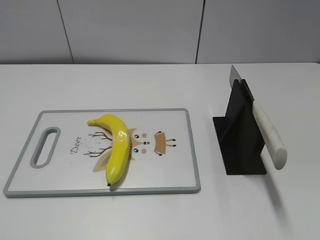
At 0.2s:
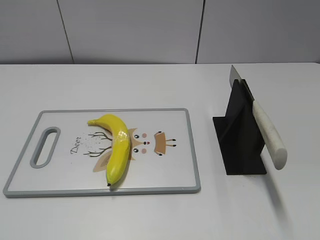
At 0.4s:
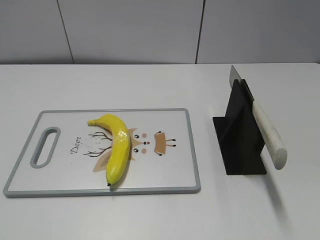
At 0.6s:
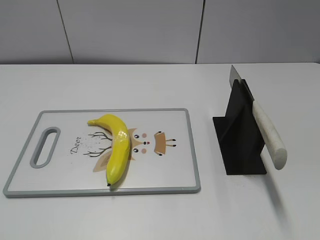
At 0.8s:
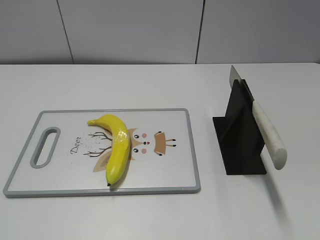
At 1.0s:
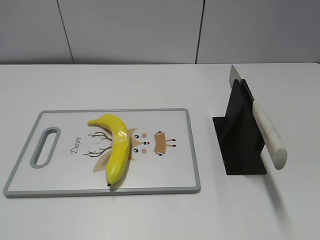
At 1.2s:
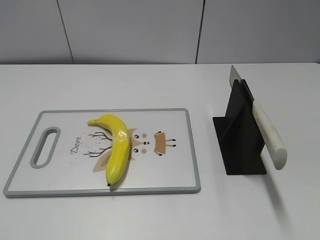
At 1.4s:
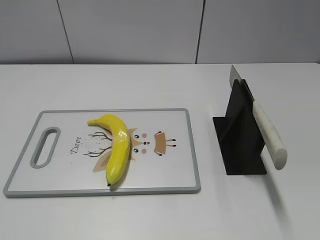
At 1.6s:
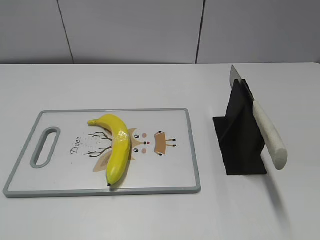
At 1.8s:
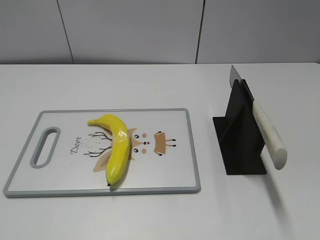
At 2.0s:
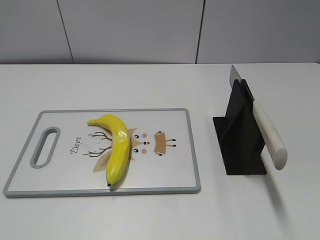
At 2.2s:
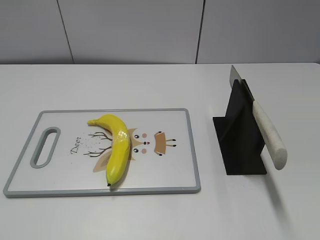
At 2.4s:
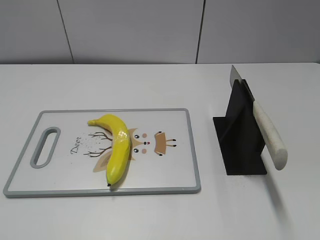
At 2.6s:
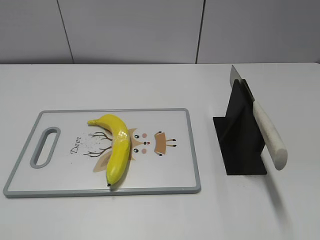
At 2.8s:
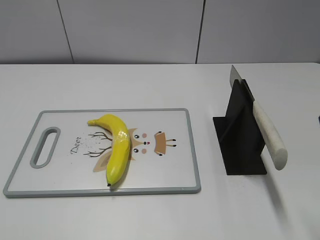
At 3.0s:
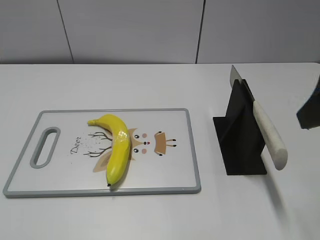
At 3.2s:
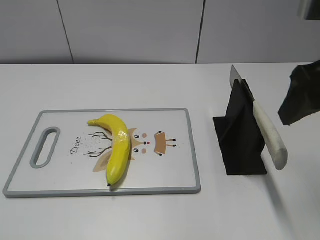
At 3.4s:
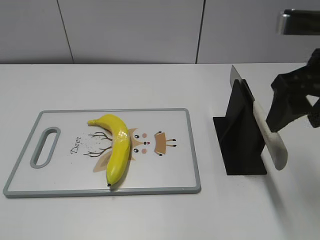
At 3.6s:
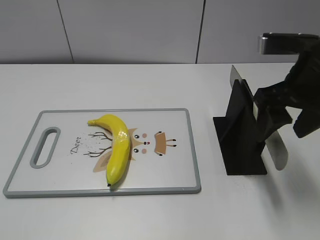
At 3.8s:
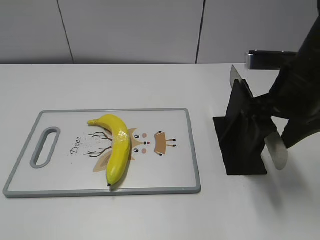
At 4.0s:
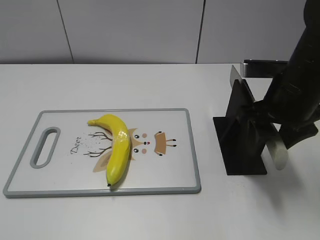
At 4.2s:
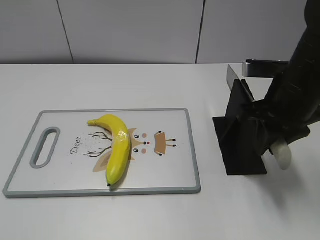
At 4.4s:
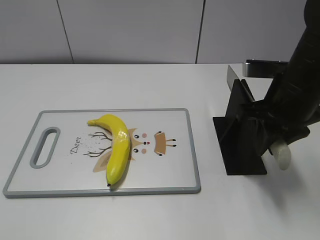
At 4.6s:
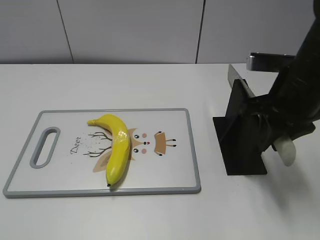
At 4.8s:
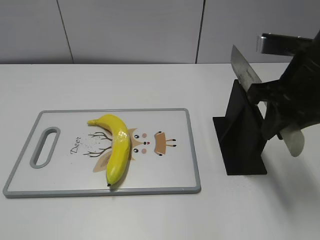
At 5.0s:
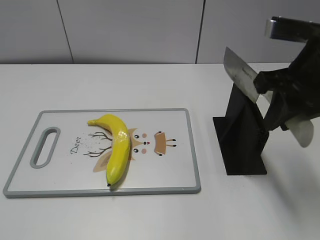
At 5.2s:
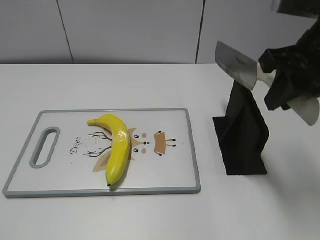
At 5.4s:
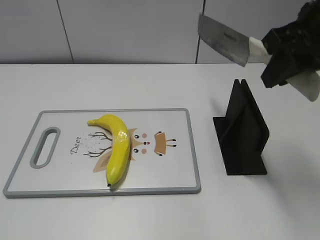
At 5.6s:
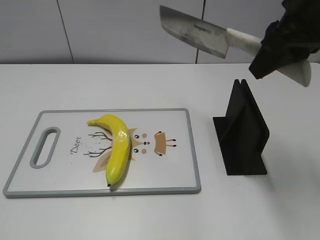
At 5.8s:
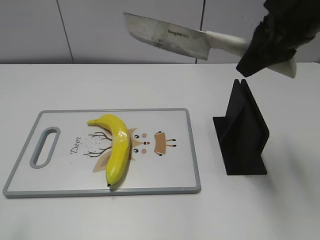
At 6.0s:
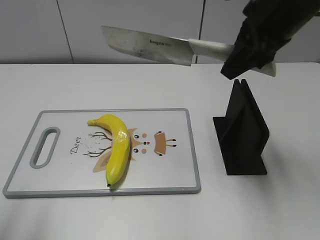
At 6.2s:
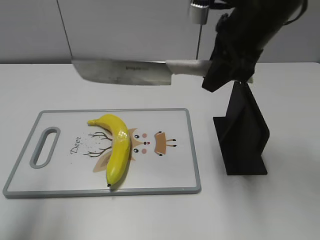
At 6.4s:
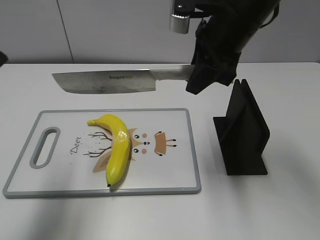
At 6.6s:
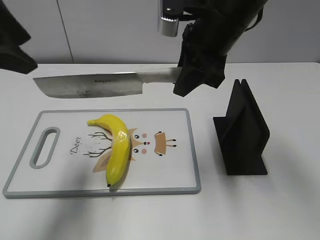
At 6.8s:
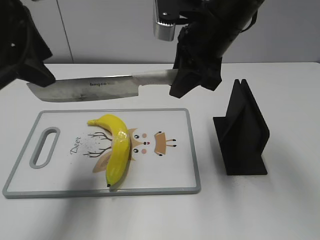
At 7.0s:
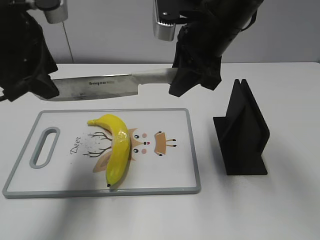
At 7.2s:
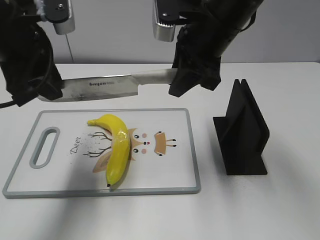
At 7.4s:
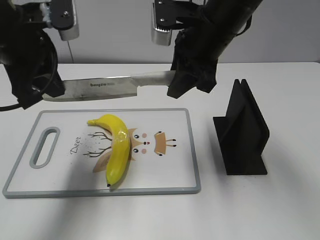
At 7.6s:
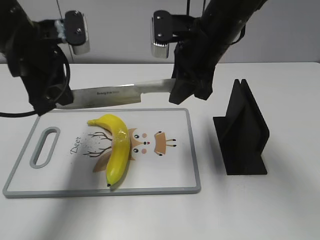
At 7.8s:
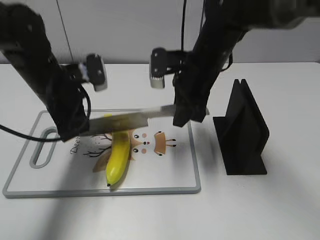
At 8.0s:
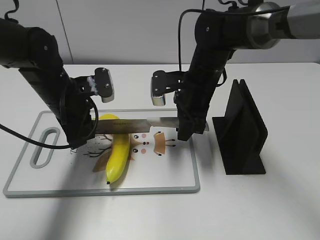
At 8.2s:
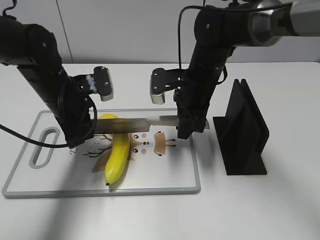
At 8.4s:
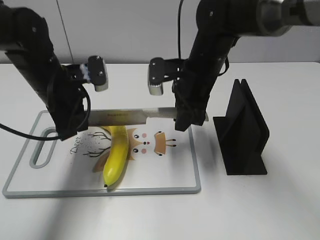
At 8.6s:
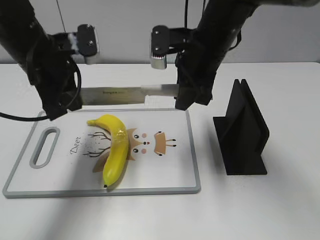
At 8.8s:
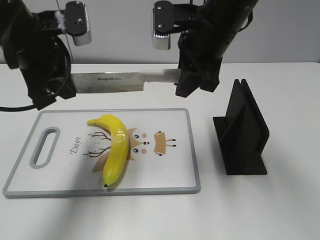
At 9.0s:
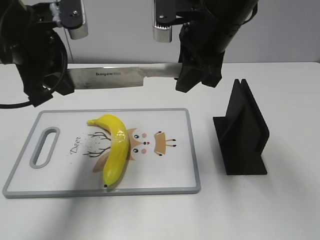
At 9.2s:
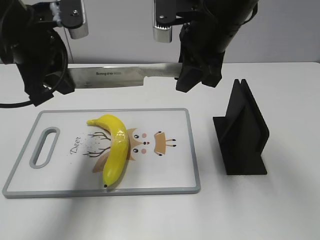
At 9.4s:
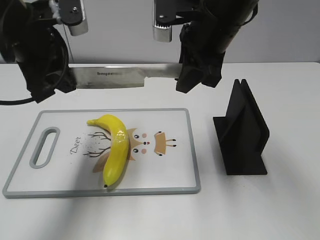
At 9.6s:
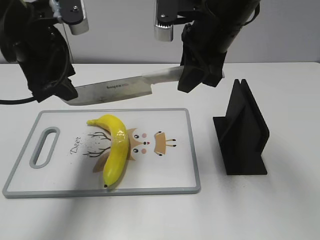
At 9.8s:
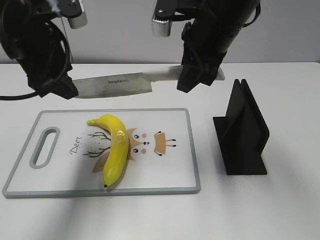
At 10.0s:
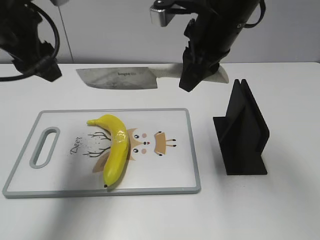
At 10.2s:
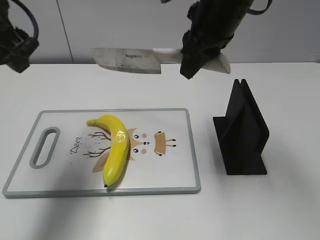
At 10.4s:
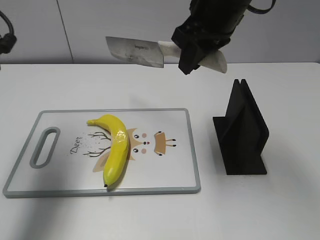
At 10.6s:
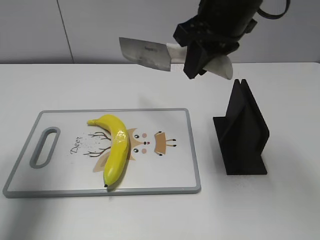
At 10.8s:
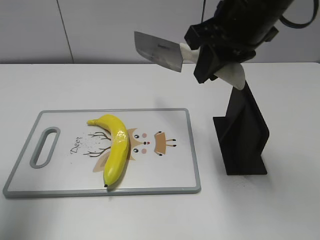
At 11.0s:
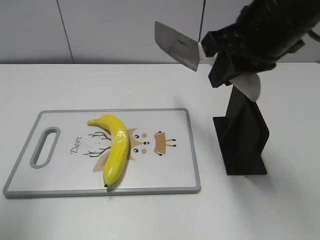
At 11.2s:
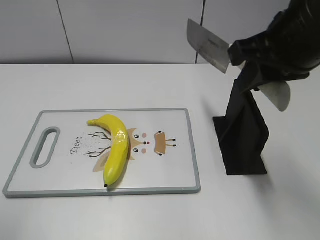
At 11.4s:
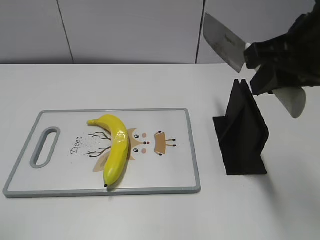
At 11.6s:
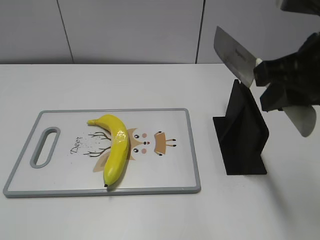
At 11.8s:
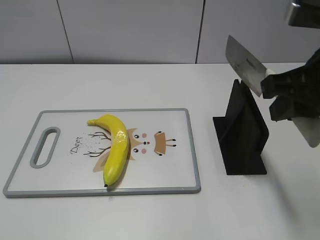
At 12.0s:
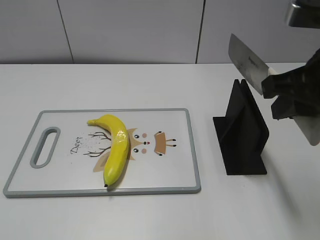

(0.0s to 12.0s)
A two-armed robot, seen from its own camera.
Task of the whole recording: cut plastic banana.
Step, 0.0s - 5.0s: Grab the knife handle with your right hand.
Step, 5.2s - 9.0s: Lift the knife with your right hand.
Step, 9.2s - 9.8s: Cut the banana with your left hand.
Step, 10.2s - 11.4s: Lift the knife with your right hand.
1.6s - 3.0s: The right gripper travels forward by about 15 cm.
3.0s - 4.4s: The right gripper moves downward and forward, about 15 cm, and closes up.
4.4s - 6.0s: The right gripper travels upward by approximately 10 cm. The left gripper moves forward and upward, some 15 cm.
6.0s - 7.6s: The left gripper shifts some 25 cm forward, to the right and downward, and closes, while the right gripper heads to the left and downward, covering some 10 cm.
7.6s - 9.0s: The right gripper travels downward and back again, about 10 cm each way. The left gripper reaches about 10 cm downward, then returns.
9.0s - 10.4s: The left gripper travels to the left by some 5 cm, and opens up.
10.4s - 12.0s: The left gripper heads backward, covering about 30 cm. The right gripper heads backward and to the right, covering roughly 15 cm.

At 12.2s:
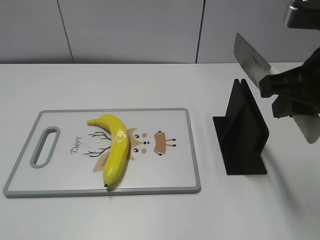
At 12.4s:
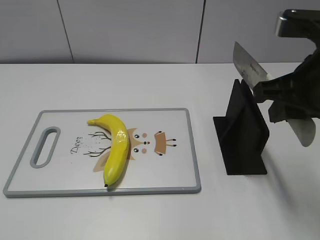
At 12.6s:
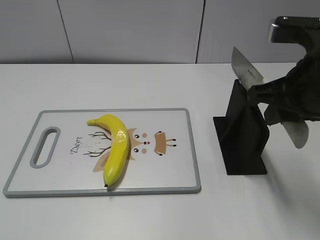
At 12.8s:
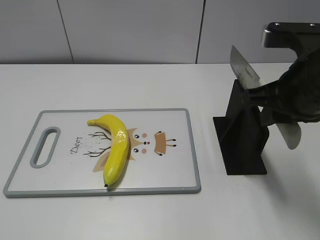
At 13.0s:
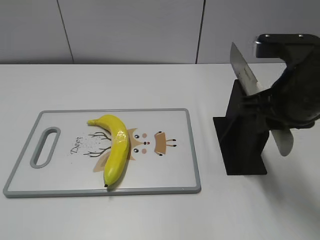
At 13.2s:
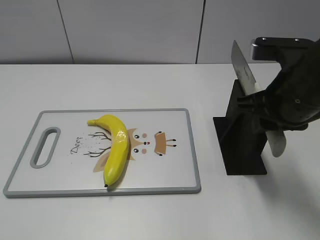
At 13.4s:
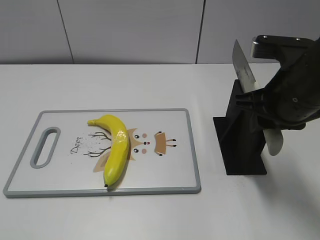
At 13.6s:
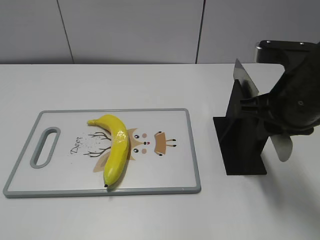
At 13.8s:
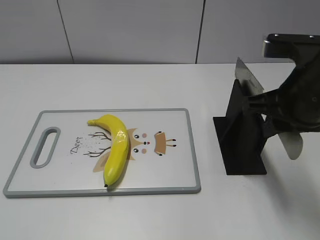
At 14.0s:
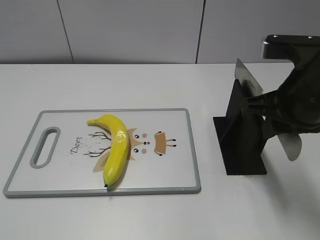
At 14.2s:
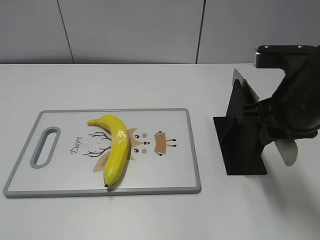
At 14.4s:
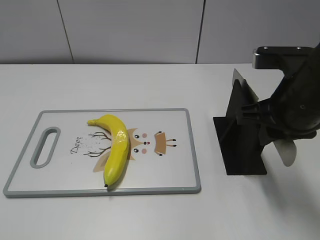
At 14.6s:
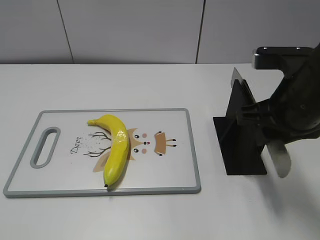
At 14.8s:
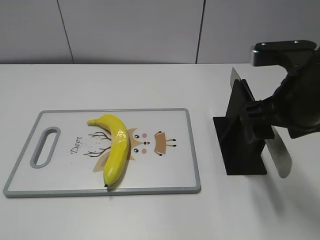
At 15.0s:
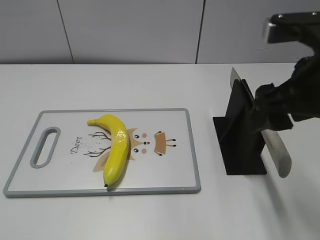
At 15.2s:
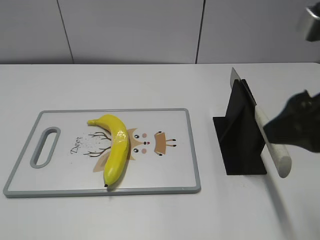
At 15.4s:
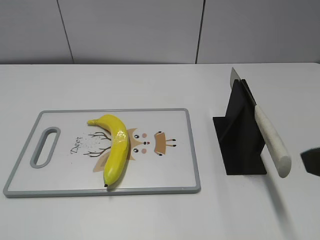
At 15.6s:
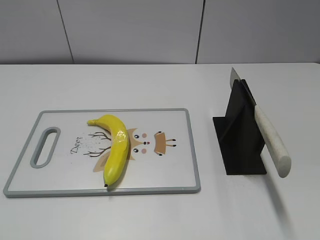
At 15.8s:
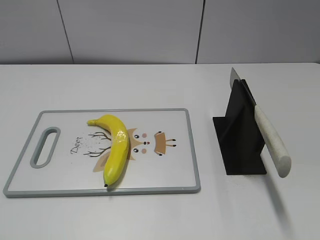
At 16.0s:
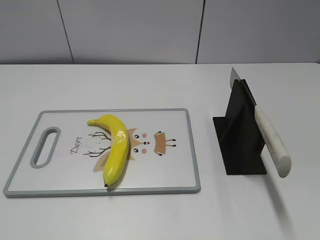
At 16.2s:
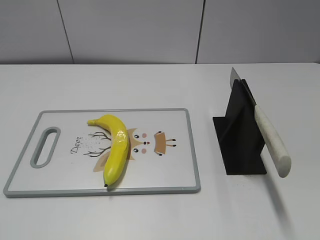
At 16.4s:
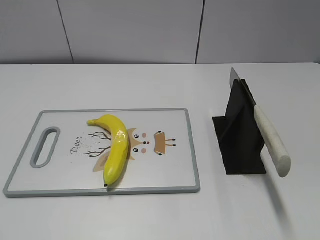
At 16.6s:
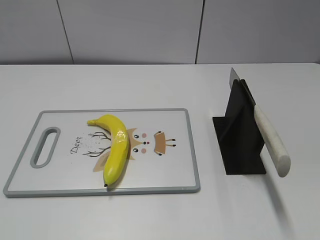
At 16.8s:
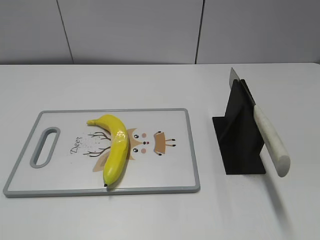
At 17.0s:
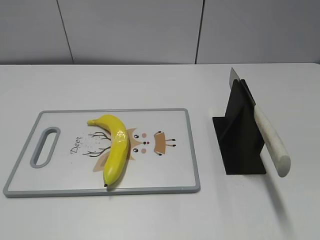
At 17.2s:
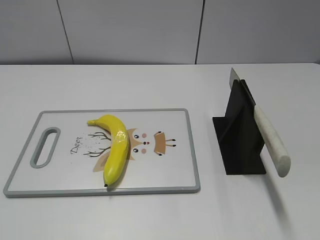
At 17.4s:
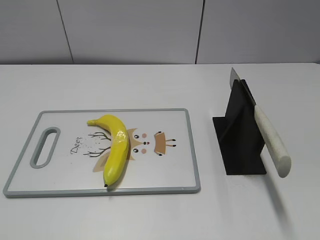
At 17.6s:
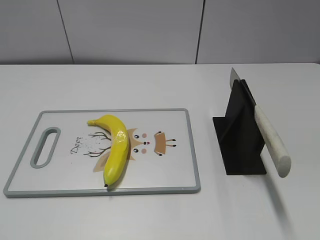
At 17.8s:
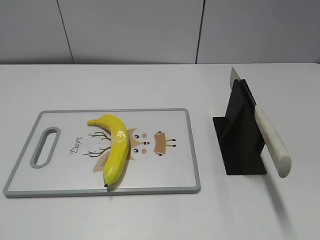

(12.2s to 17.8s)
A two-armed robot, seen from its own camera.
Task of the whole recording: cut plastic banana.
Step, 12.2s - 17.8s: Place the knife on the storage rack with your right hand.
12.2s - 13.6s: The right gripper is displaced downward by some 5 cm.
13.6s - 15.0s: The right gripper shifts by about 5 cm, and opens.
15.0s - 16.4s: The right gripper travels backward and to the right by some 20 cm.

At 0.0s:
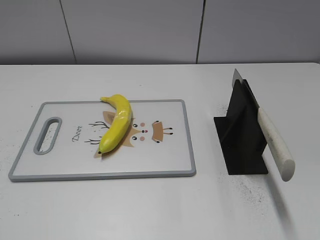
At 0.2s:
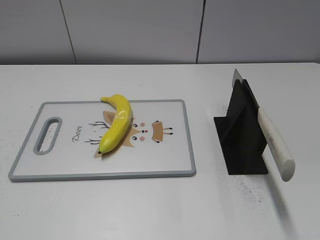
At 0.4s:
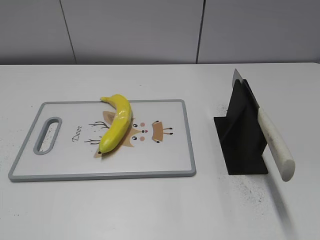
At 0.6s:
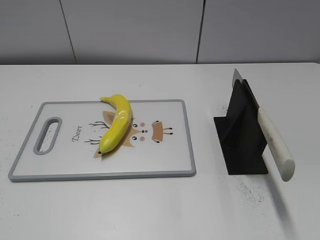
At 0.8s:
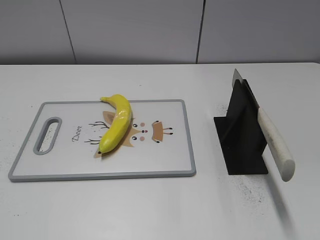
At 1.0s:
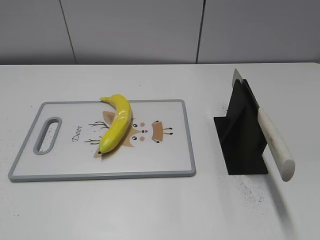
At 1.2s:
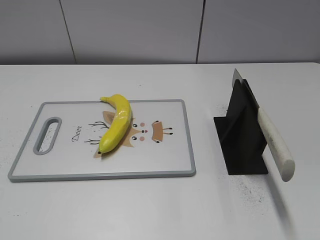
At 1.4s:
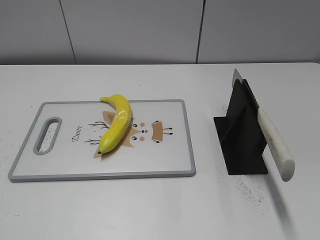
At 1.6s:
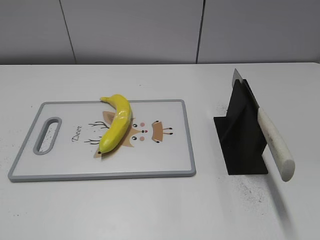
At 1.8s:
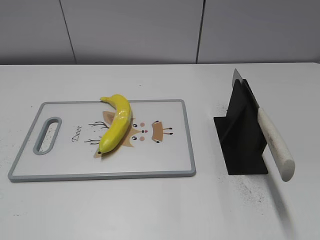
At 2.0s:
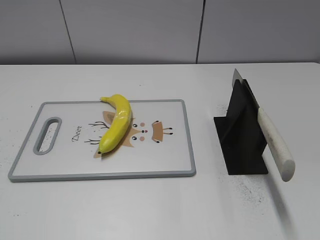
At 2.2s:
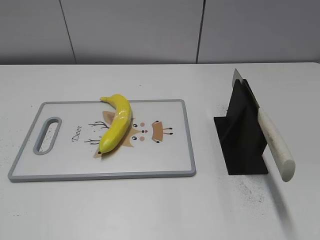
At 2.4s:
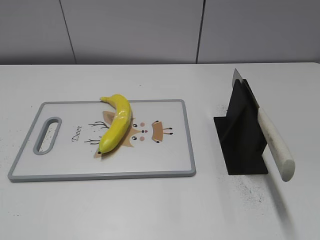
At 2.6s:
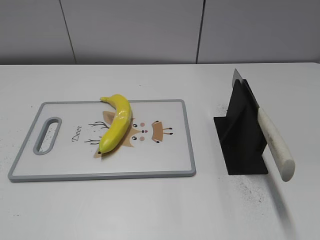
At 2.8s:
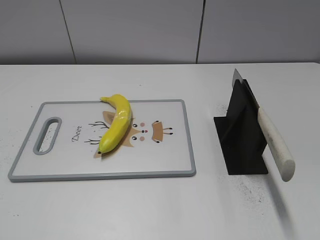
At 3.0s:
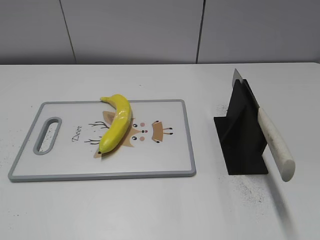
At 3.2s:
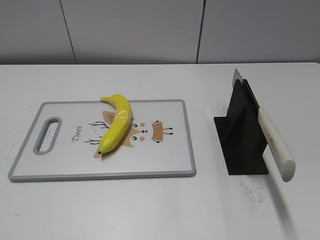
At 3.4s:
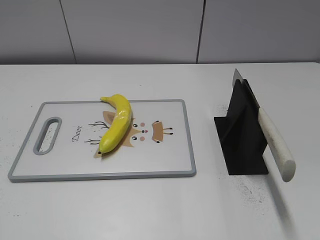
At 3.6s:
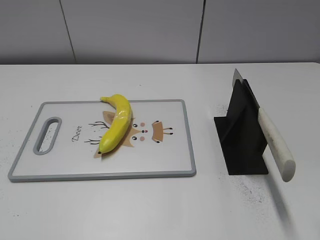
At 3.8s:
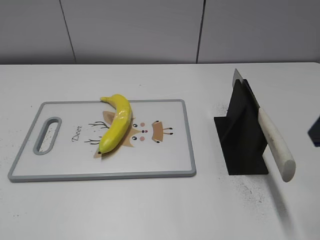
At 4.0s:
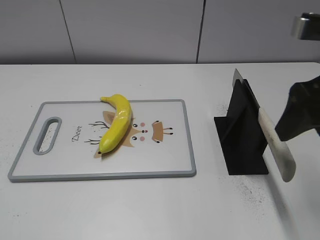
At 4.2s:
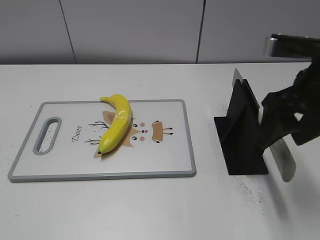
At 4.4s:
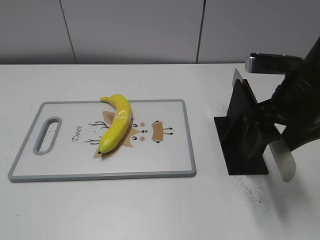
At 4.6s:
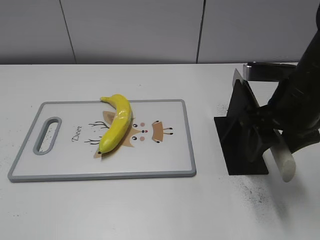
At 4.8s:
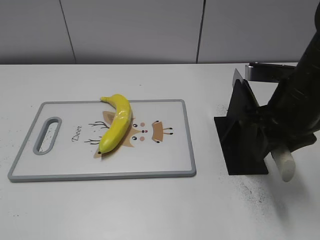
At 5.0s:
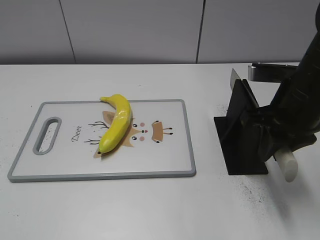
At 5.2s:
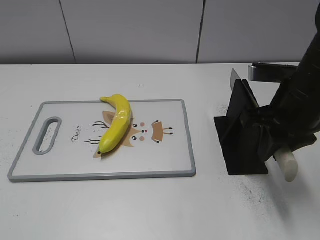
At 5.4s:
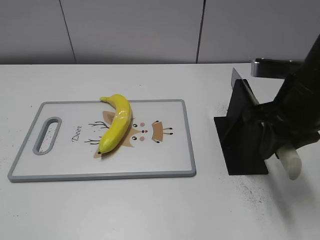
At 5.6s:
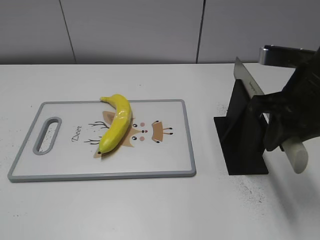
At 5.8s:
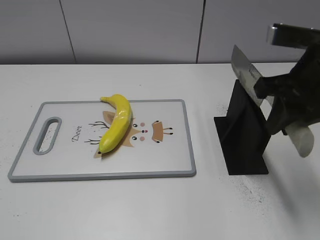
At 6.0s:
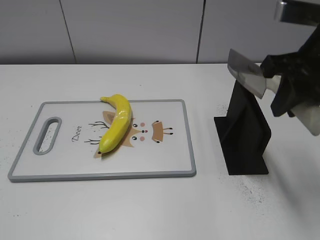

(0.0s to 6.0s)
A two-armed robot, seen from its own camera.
Task of the whole recording: cut plastic banana.
3.0s - 4.4s: The right gripper is displaced forward, to the left and downward by about 25 cm.
4.4s - 6.0s: The right gripper is displaced upward by approximately 5 cm, and closes up.
